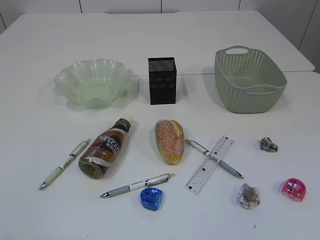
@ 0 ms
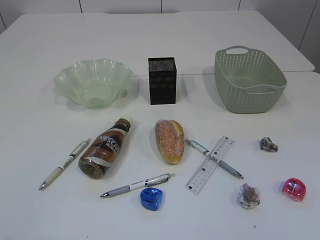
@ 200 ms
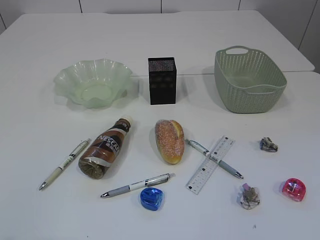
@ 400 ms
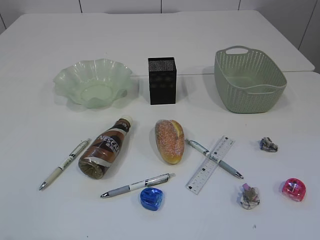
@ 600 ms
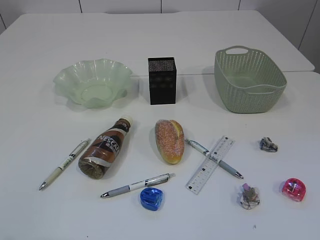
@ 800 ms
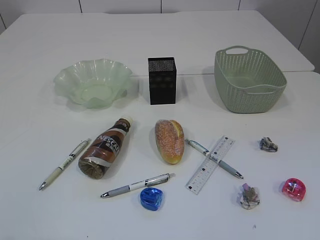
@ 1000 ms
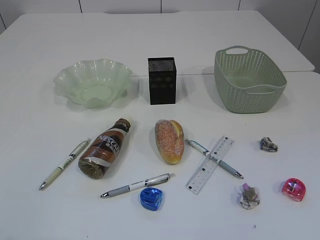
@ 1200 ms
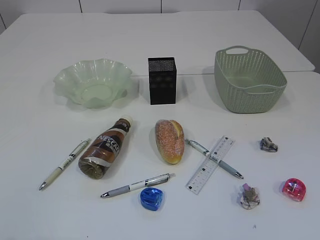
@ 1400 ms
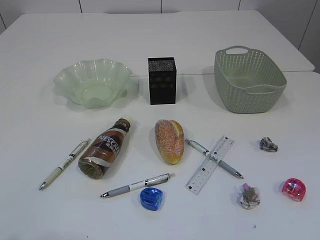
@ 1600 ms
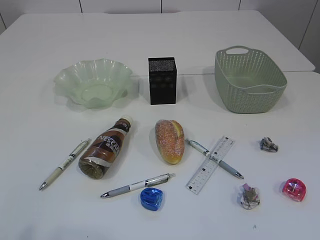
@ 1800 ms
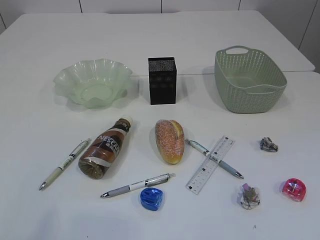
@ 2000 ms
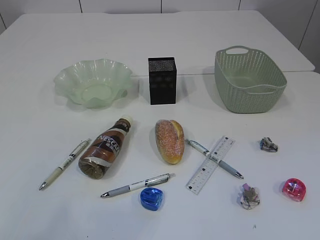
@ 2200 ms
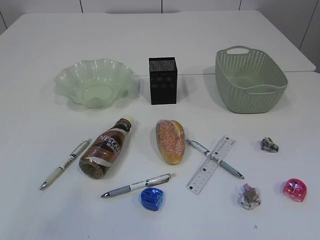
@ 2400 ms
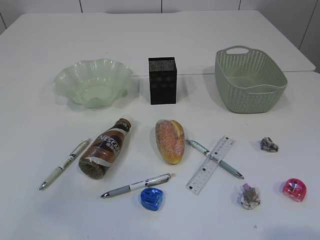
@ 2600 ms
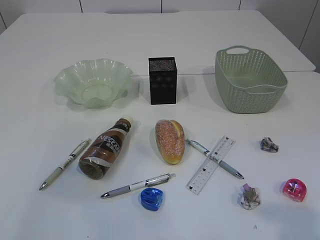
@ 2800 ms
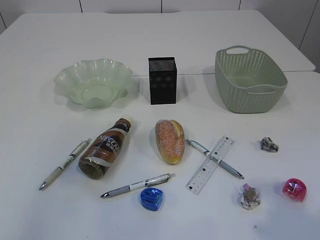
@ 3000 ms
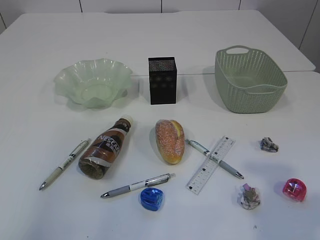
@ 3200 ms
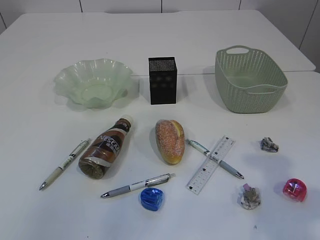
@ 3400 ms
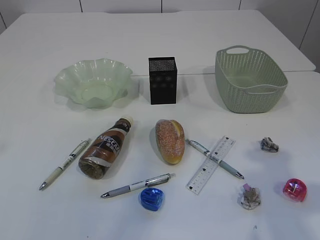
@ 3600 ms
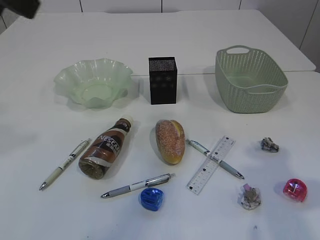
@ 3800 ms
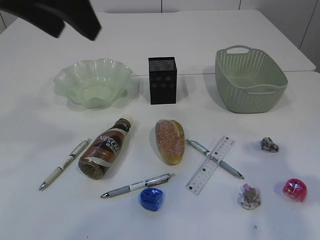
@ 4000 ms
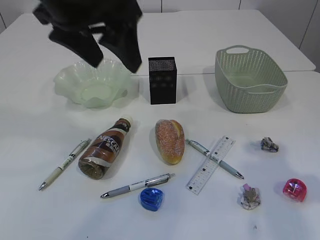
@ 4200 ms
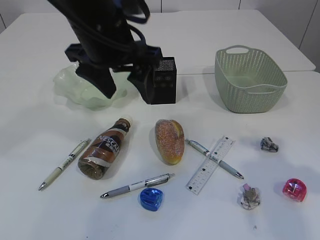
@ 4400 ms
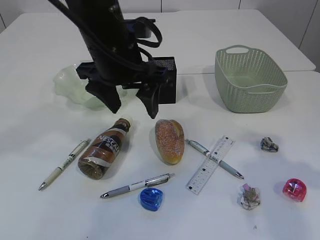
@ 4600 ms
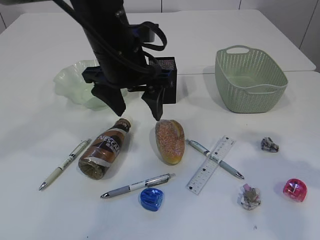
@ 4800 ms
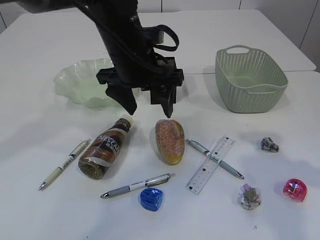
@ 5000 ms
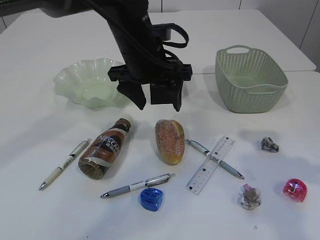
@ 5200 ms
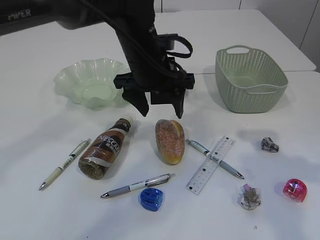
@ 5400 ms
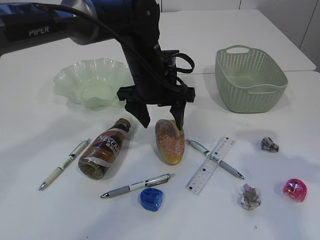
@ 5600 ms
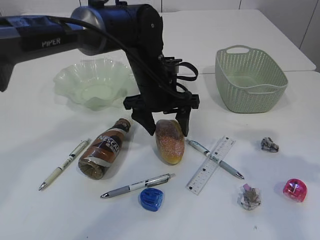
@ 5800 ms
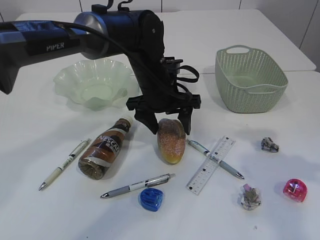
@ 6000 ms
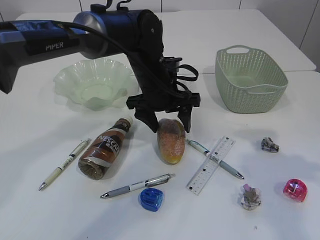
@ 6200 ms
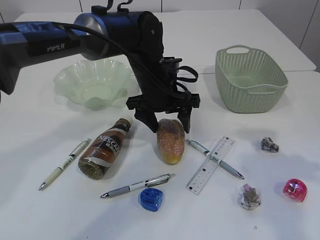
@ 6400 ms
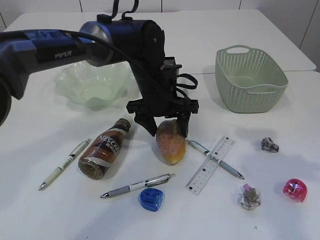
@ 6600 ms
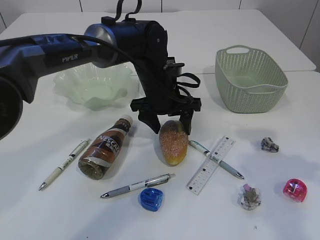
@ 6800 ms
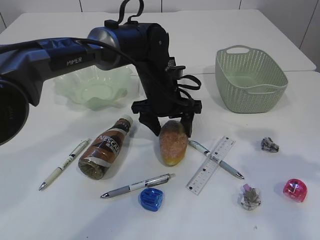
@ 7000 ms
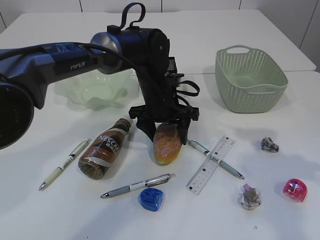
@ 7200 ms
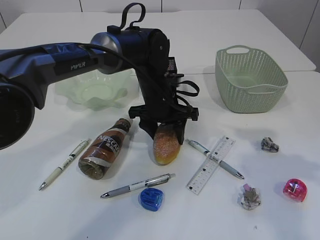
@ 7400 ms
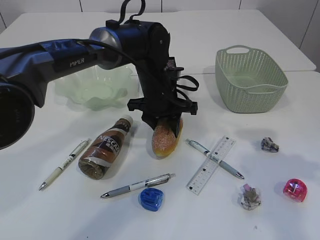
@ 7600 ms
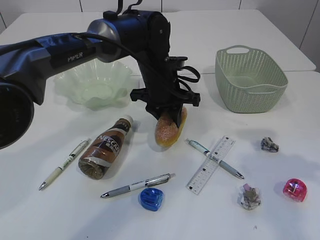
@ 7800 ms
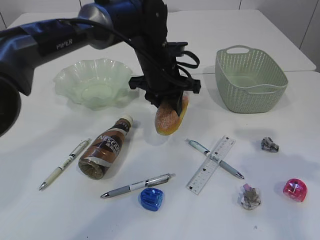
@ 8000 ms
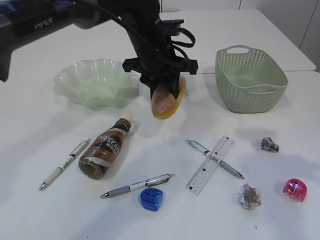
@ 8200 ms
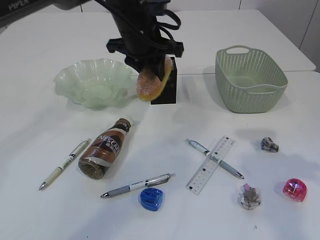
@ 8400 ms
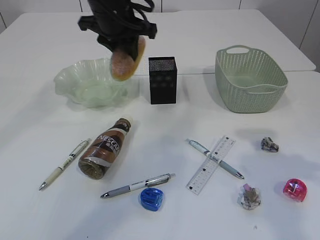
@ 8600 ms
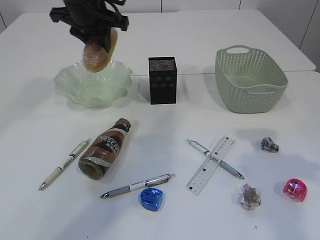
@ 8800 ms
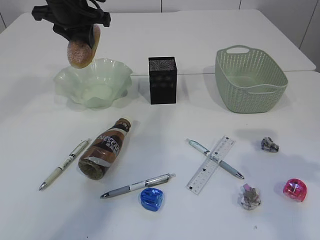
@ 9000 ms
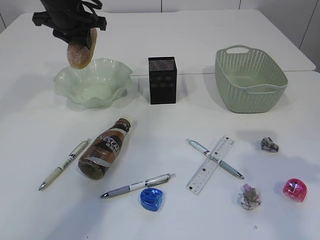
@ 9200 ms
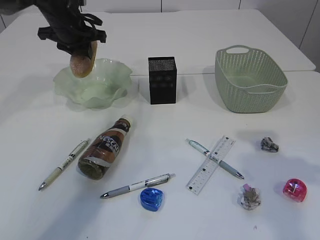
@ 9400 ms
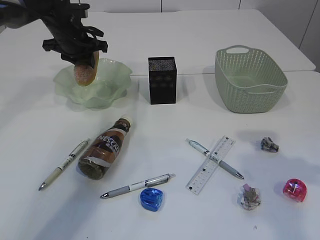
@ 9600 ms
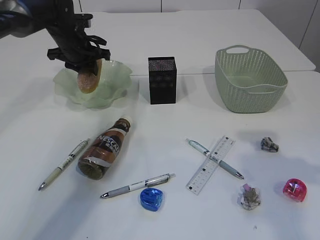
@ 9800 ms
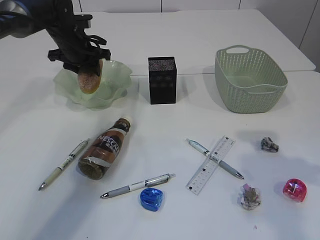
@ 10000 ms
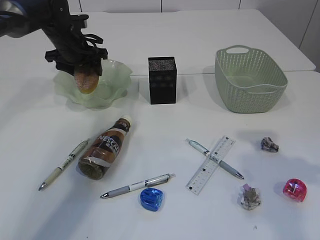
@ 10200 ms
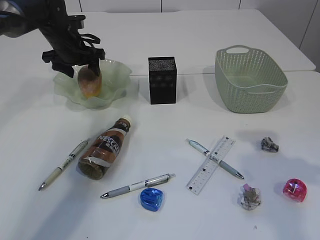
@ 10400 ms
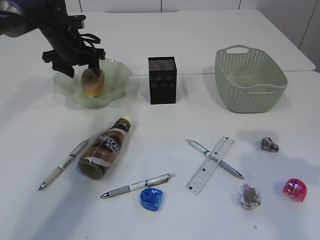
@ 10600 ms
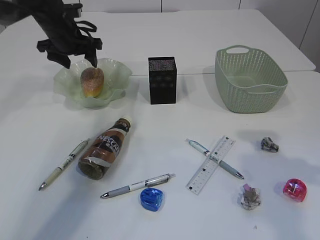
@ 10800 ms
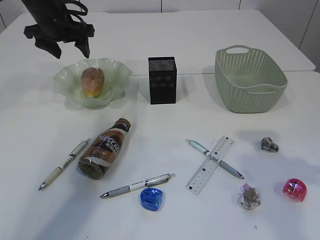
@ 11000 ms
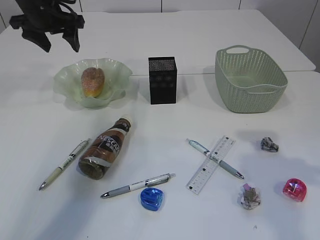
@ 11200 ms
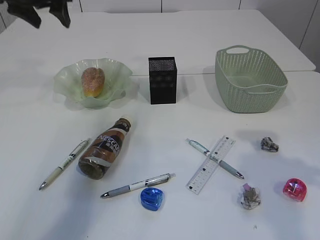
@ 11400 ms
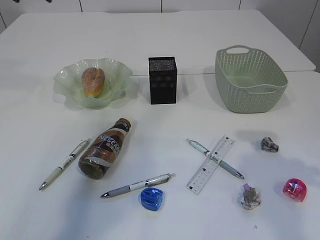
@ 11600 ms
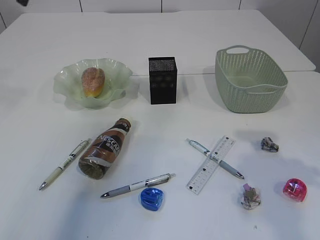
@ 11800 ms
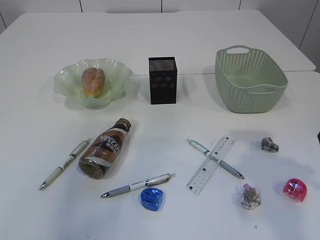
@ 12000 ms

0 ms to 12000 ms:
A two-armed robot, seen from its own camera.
Step, 8400 ms to 11000 ms: place the bread in the plate.
1600 ms to 3000 ms: The left gripper shifts approximately 20 cm forward and upward. The right gripper moves forward and upward, about 10 cm.
3000 ms to 4400 ms: The left gripper heads to the right, forward and downward, covering about 30 cm; the right gripper shifts about 15 cm forward and downward.
4400 ms to 6000 ms: The left gripper moves downward, forward and to the right, about 15 cm.
6000 ms to 7600 ms: The left gripper closes up.
7600 ms to 9000 ms: The left gripper moves to the left and upward, roughly 20 cm.
9000 ms to 10400 ms: The left gripper travels downward and forward by roughly 10 cm, and opens up.
10400 ms to 12000 ms: The left gripper moves backward and upward, about 35 cm.

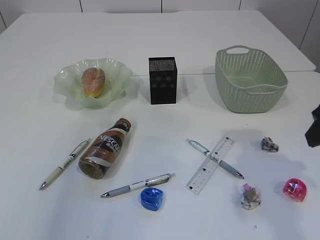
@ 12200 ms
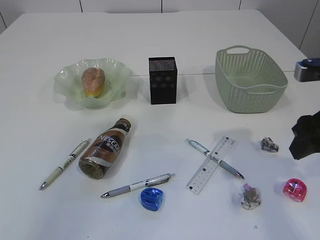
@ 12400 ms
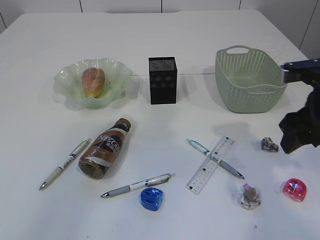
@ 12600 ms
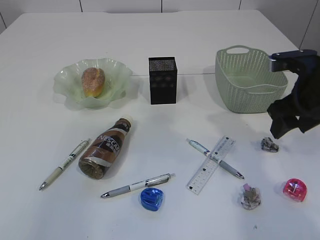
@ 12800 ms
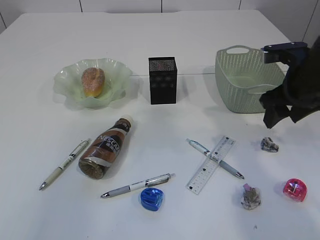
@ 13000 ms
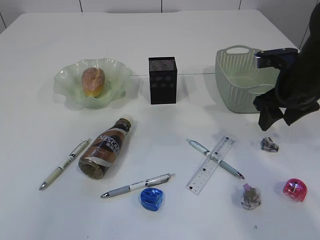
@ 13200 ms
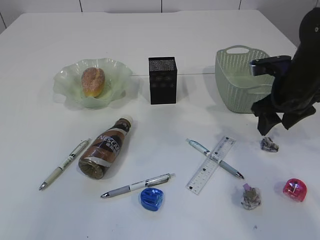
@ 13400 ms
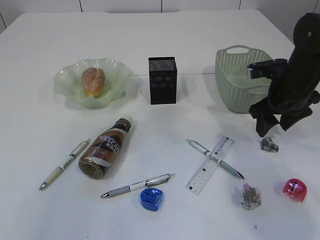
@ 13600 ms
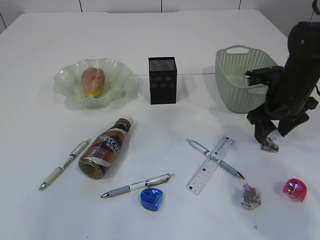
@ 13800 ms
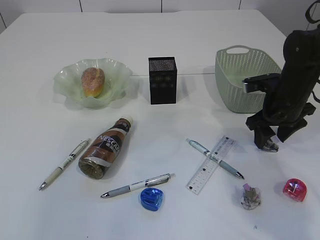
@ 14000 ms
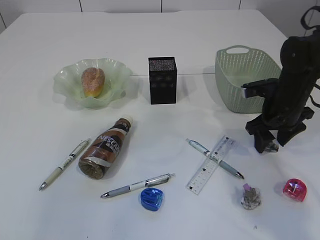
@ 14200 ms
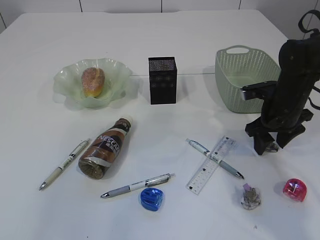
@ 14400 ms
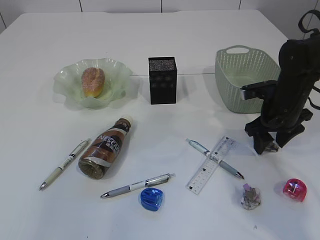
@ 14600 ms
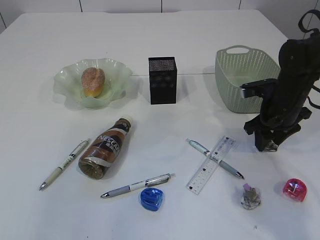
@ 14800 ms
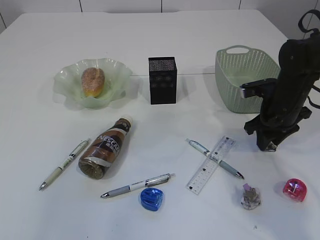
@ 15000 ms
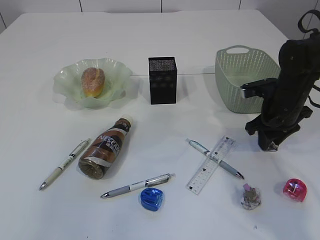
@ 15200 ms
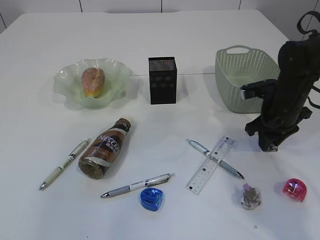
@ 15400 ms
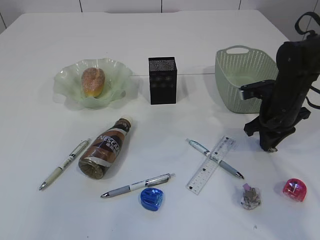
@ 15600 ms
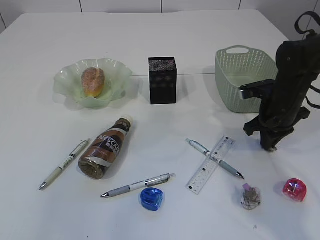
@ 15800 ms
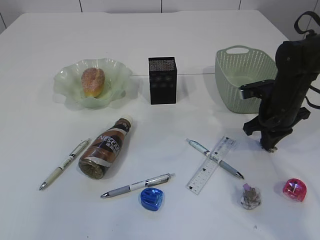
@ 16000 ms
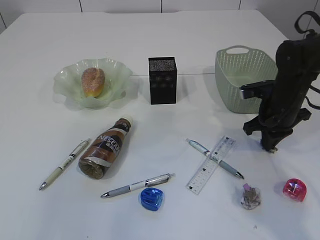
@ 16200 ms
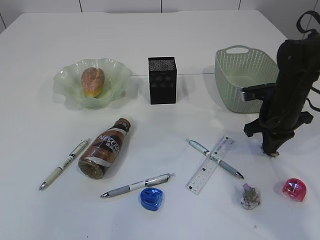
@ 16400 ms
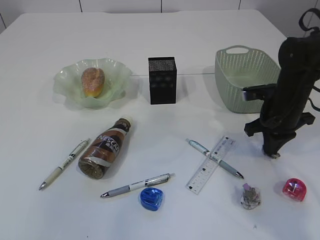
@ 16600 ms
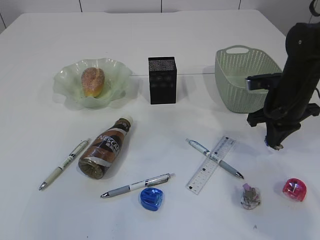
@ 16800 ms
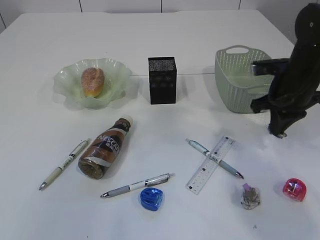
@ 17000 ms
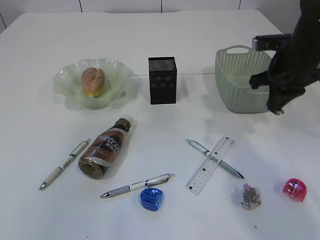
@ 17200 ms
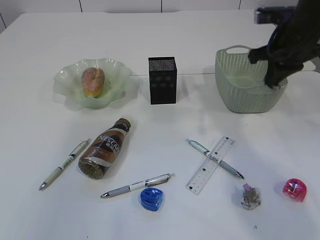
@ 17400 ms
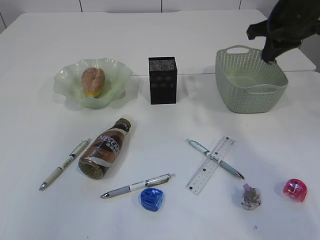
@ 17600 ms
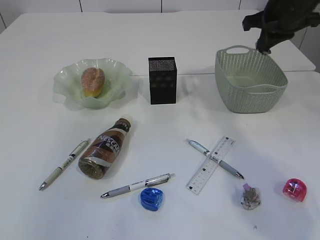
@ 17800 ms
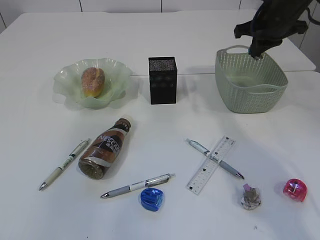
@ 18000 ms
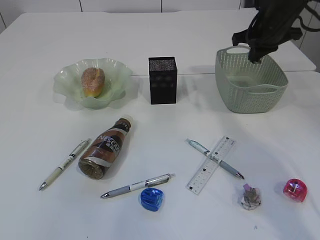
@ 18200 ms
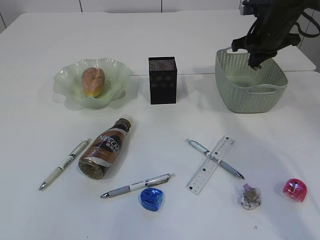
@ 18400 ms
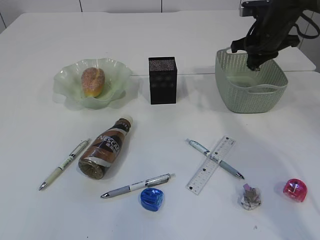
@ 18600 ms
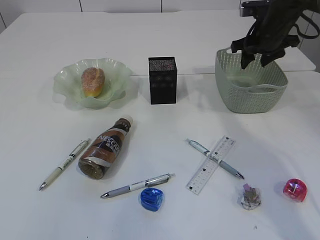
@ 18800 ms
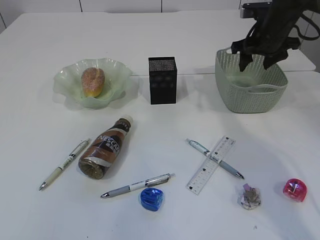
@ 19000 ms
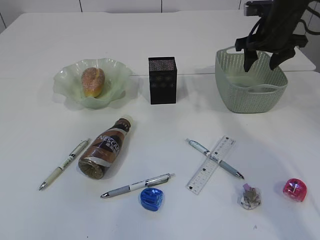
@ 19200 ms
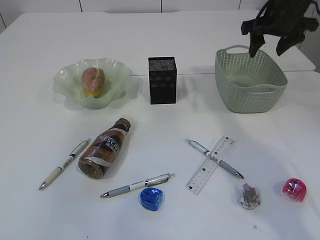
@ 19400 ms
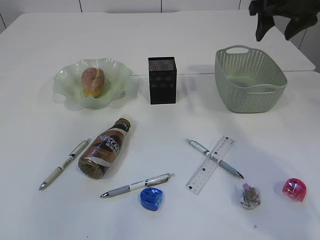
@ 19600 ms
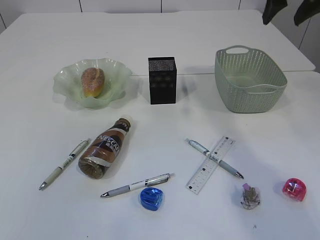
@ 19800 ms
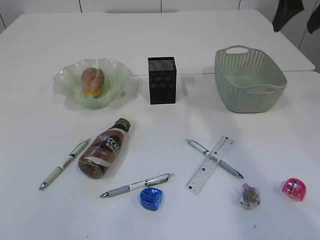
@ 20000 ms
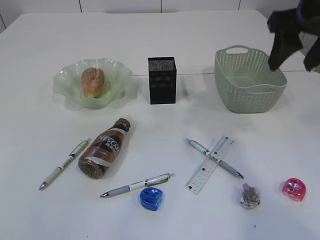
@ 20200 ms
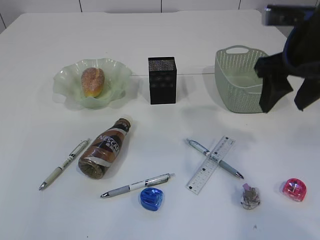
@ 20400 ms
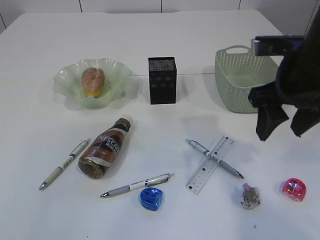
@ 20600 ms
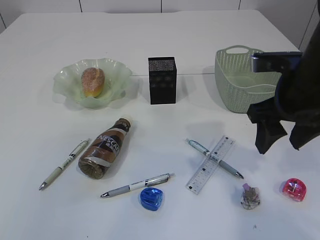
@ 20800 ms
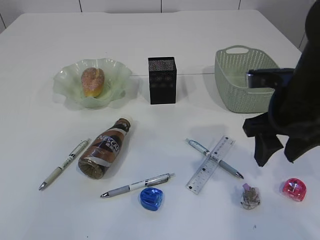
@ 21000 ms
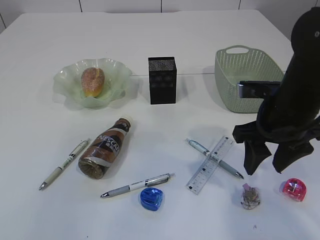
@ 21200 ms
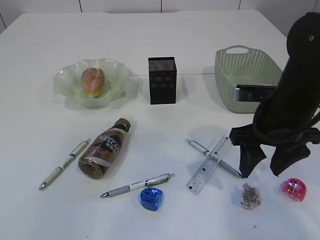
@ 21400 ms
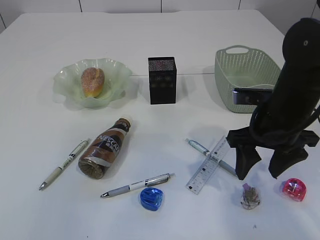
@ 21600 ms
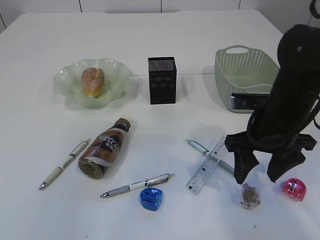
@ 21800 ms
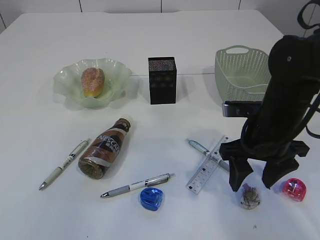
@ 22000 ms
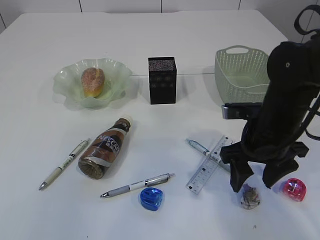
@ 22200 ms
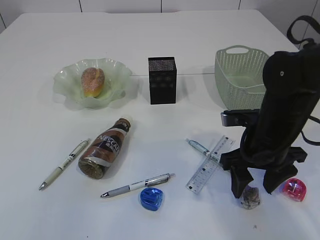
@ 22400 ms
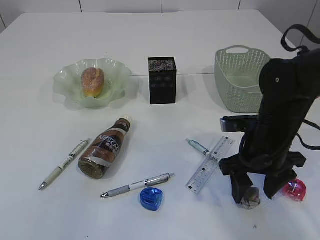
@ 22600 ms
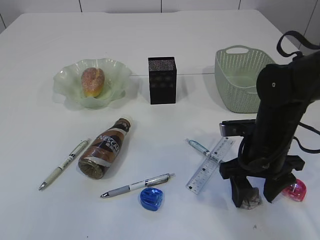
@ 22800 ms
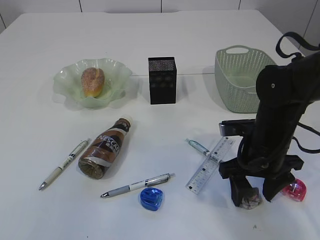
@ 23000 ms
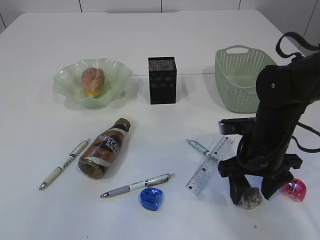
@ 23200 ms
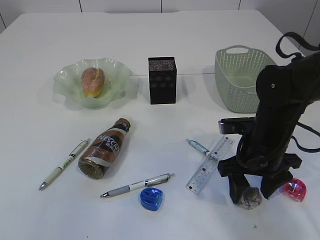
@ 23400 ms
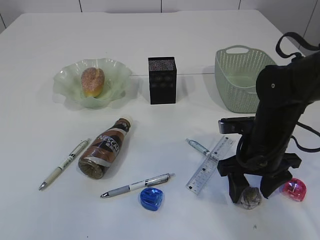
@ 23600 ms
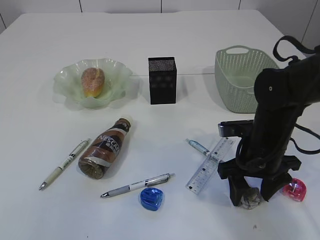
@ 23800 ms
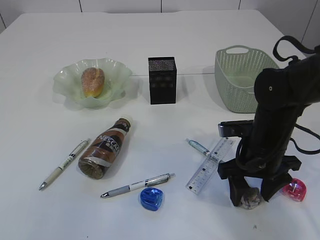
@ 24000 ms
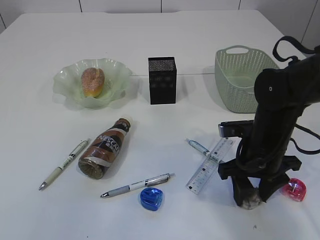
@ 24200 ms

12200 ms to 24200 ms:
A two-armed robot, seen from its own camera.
Step, 12200 ms to 17000 ms: Pick up the waste paper.
Step, 17200 ms to 19200 ms: Place the waste paper in the basket.
12200 ms to 13800 ms: The right gripper shifts roughly 20 cm forward and downward.
13800 ms to 15200 ms: The right gripper closes.
15200 ms to 16600 ms: The right gripper closes its fingers.
16600 ms to 18200 ms: The right gripper shifts roughly 15 cm upward and forward.
18200 ms to 19800 ms: The right gripper moves upward and backward, approximately 15 cm, and opens up.
19800 ms to 21200 ms: The right gripper is displaced downward, backward and to the left by roughly 20 cm.
21200 ms to 22600 ms: The right gripper goes approximately 5 cm downward.
22600 ms to 24200 ms: The grippers stay close to where they were, moving slightly.
